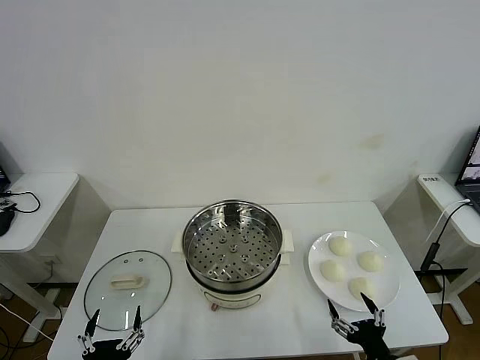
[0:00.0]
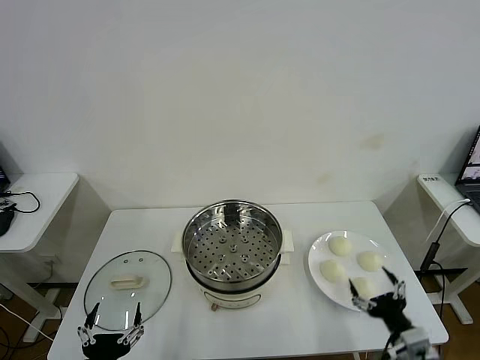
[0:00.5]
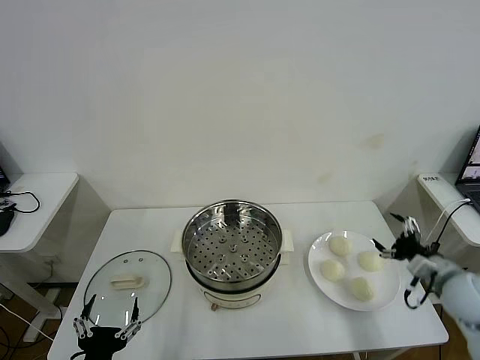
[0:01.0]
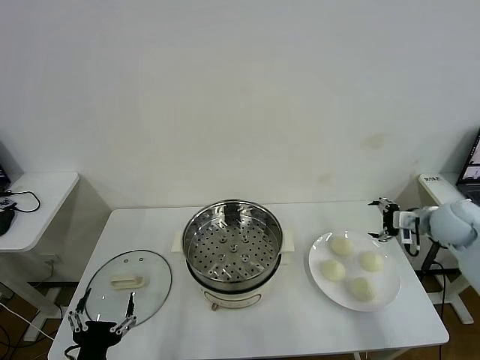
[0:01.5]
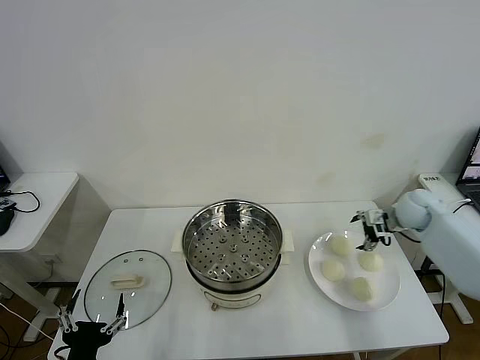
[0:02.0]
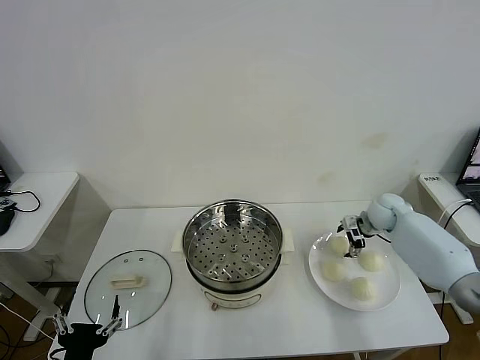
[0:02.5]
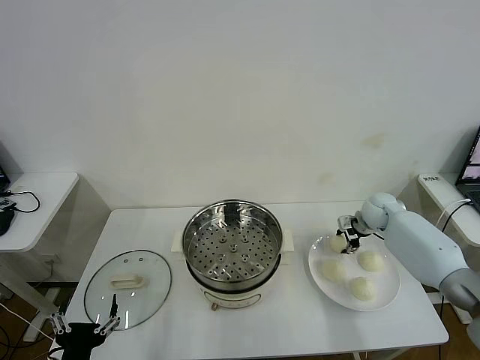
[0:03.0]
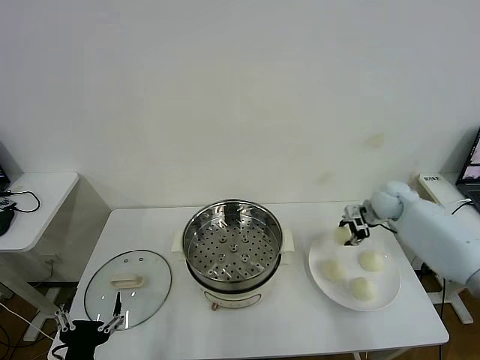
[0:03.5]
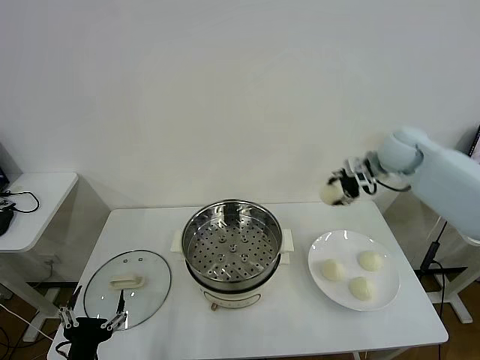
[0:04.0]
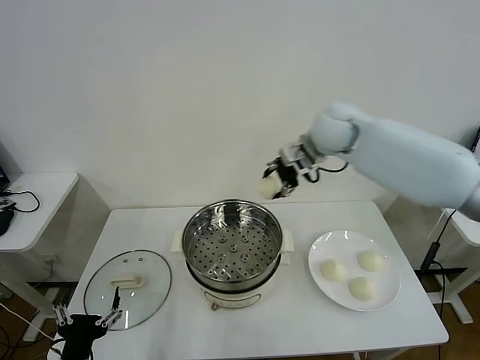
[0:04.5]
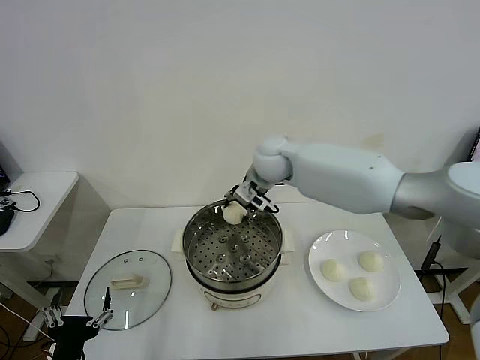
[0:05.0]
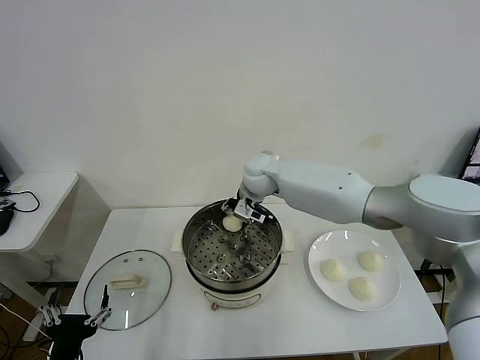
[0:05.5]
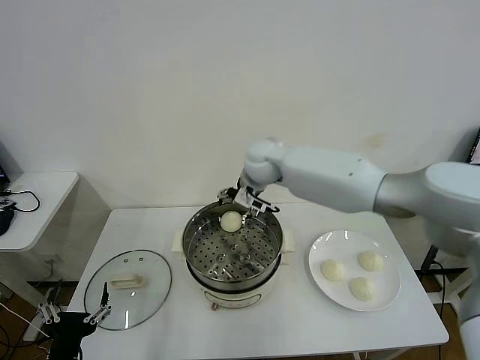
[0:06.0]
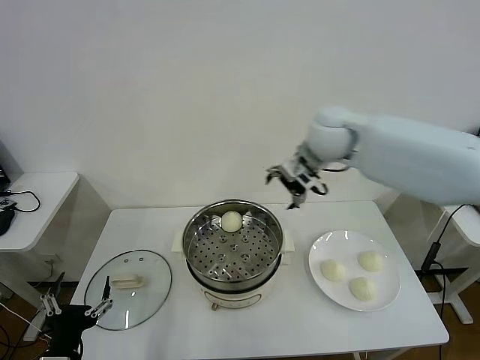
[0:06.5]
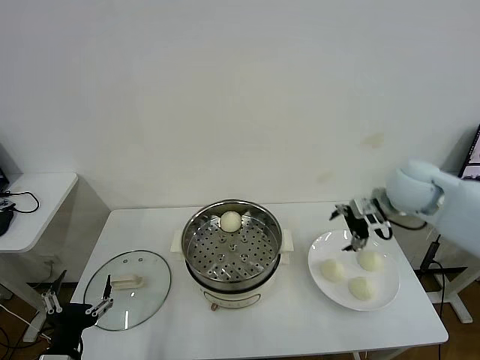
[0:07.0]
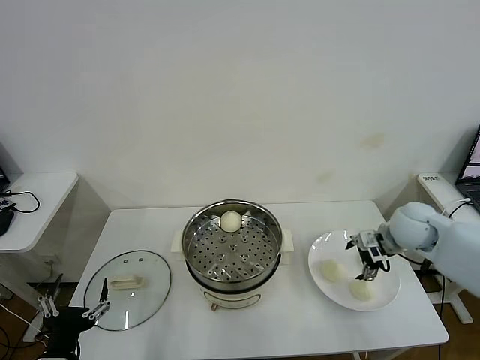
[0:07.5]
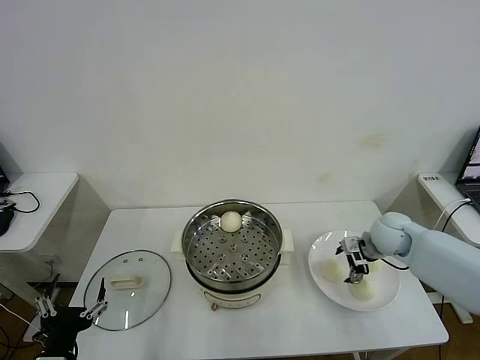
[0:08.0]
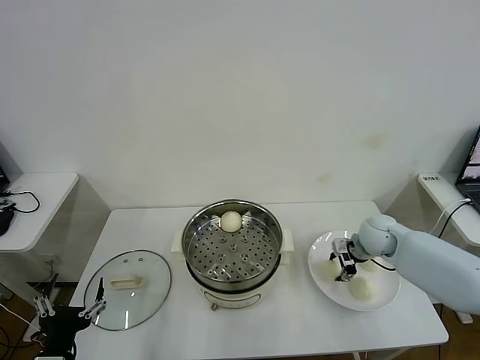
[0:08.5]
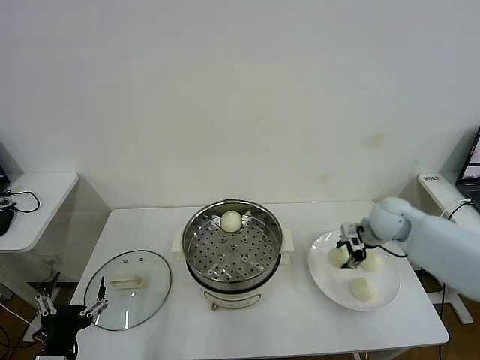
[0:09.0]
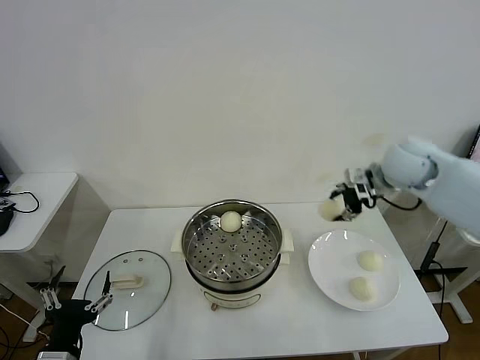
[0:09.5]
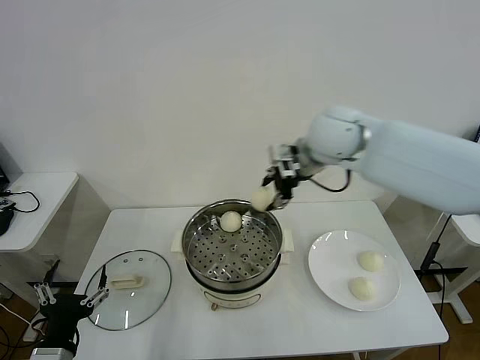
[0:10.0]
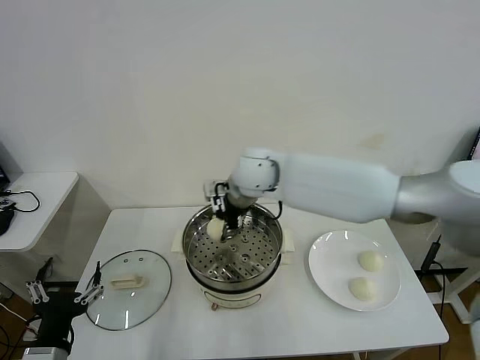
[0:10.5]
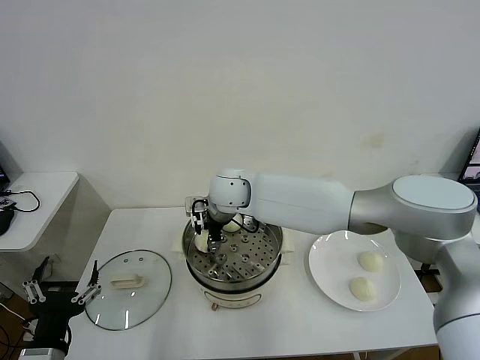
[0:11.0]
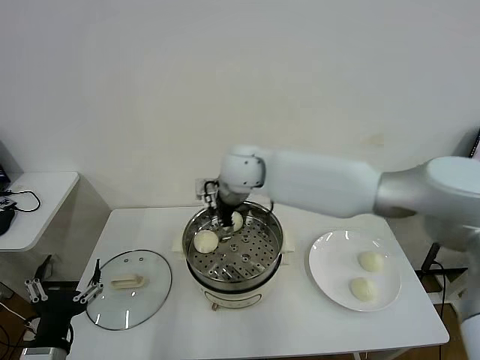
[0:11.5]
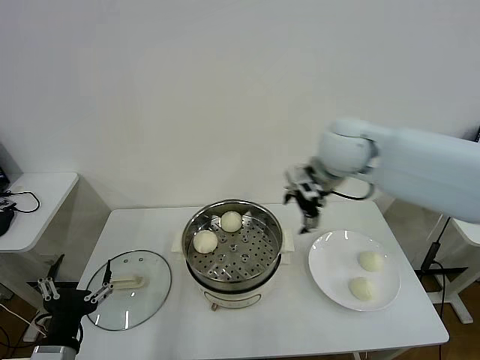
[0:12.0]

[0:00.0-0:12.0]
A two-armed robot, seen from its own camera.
Task of the whole recording: take steamed baozi put them in steamer then cover it.
Step, 0:00.0 to 0:02.5: Grasp the baozi in the plate with right gripper.
Step, 0:03.0 to 0:05.5: Place the baozi on the steamer with right gripper.
Step, 0:06.0 to 0:08.5: Grasp the baozi in the plate with right gripper.
Step, 0:09.0 to 0:11.0: Place the baozi on the steamer with right gripper.
0:02.0 to 0:04.0: The right gripper moves upward and to the left, some 25 cm, and closes up.
0:04.0 to 0:06.0: The right gripper moves to the left, some 25 cm, and opens up.
0:06.0 to 0:08.0: The right gripper travels to the right and downward by some 35 cm.
0:08.0 to 0:10.0: The right gripper is displaced upward and to the left by about 35 cm, and closes its fingers.
0:10.0 to 0:12.0: The right gripper goes about 10 cm to the right, and opens up.

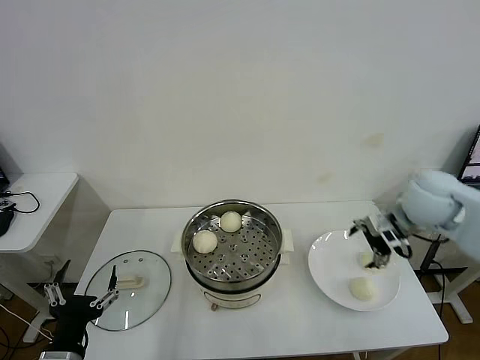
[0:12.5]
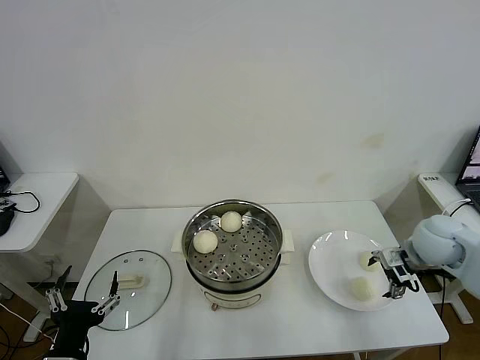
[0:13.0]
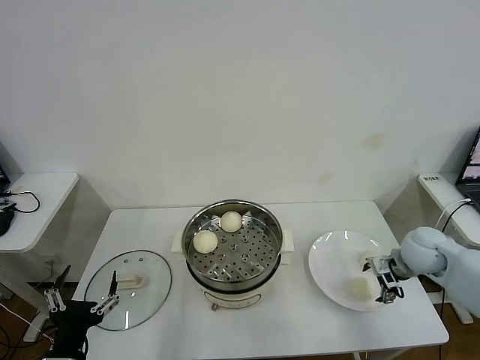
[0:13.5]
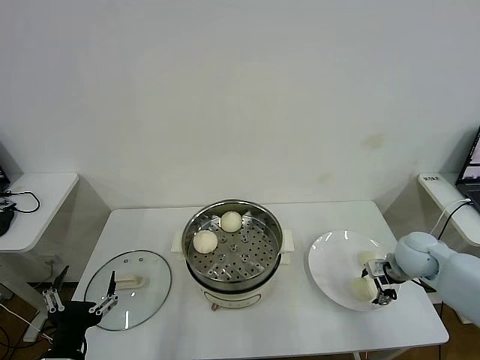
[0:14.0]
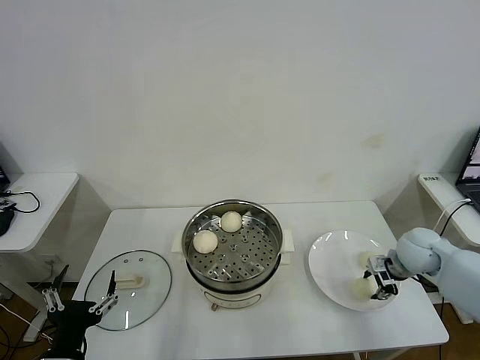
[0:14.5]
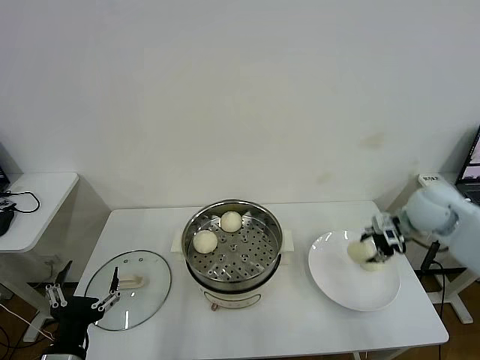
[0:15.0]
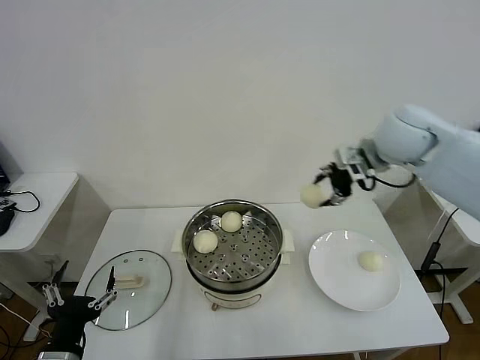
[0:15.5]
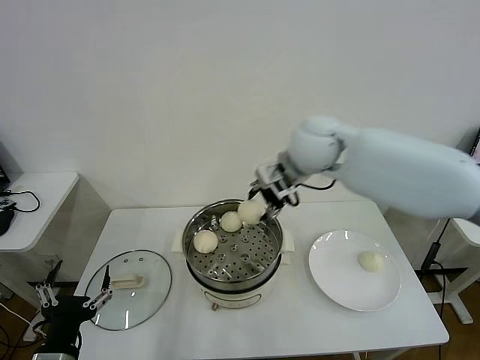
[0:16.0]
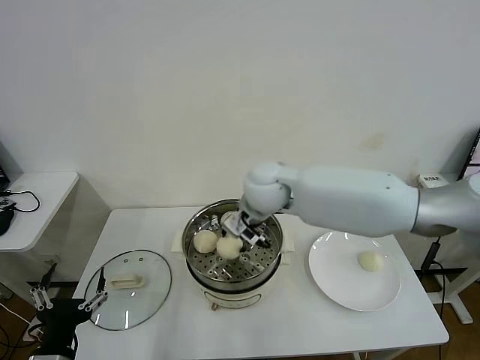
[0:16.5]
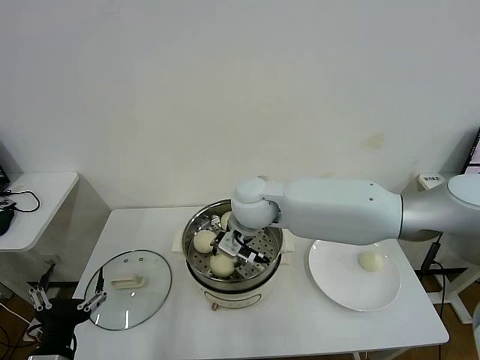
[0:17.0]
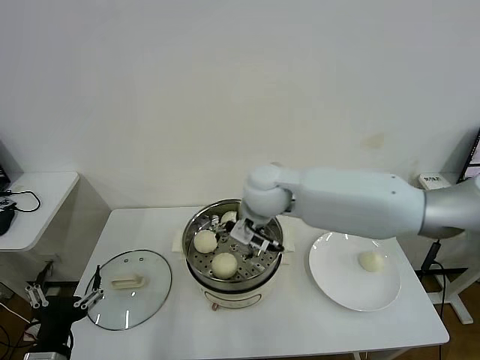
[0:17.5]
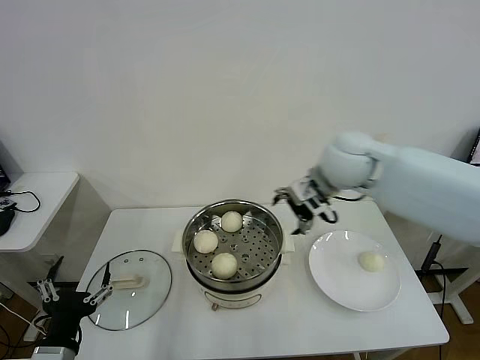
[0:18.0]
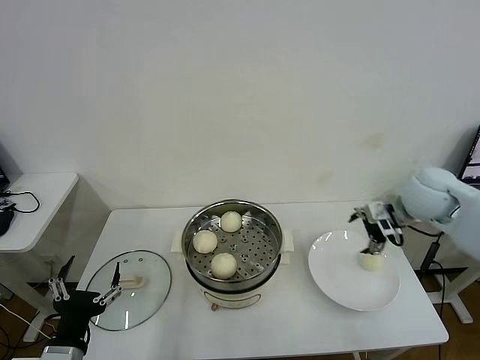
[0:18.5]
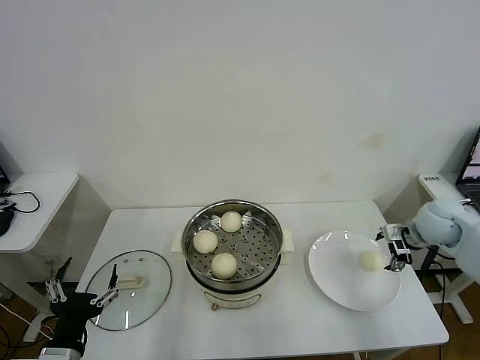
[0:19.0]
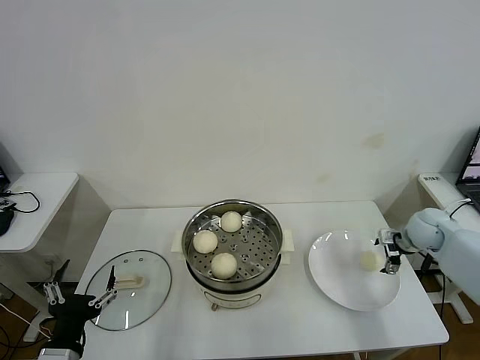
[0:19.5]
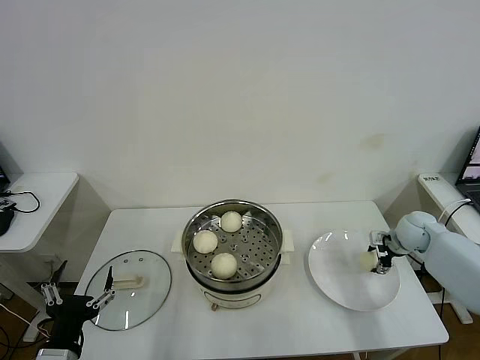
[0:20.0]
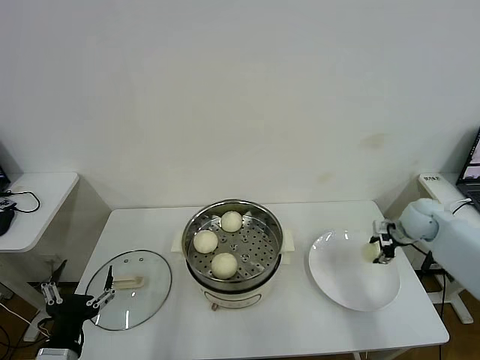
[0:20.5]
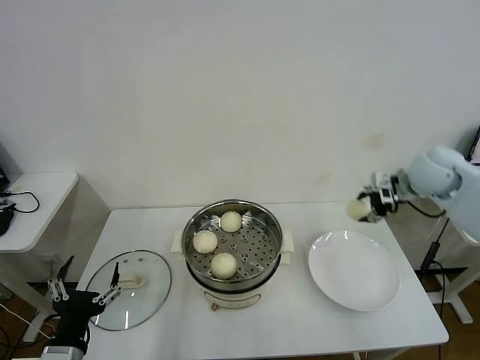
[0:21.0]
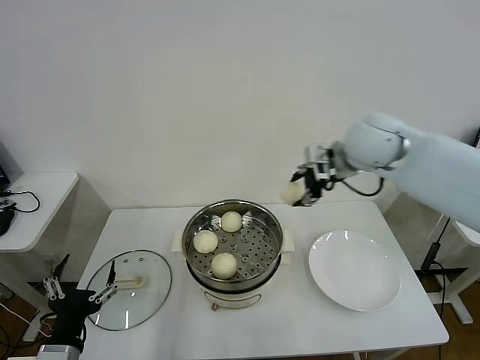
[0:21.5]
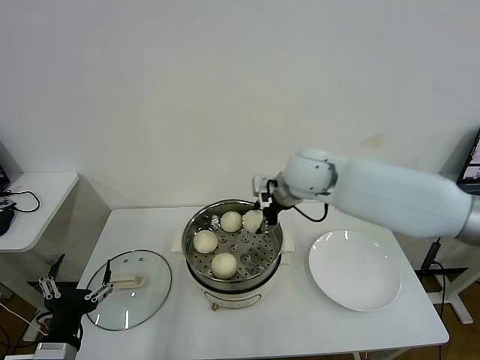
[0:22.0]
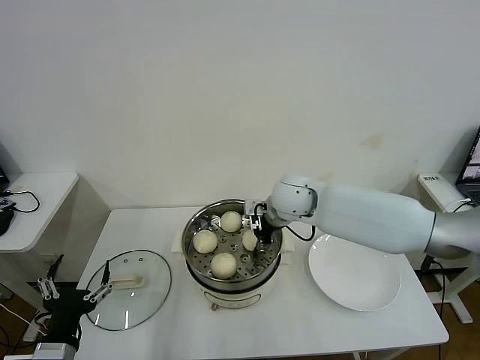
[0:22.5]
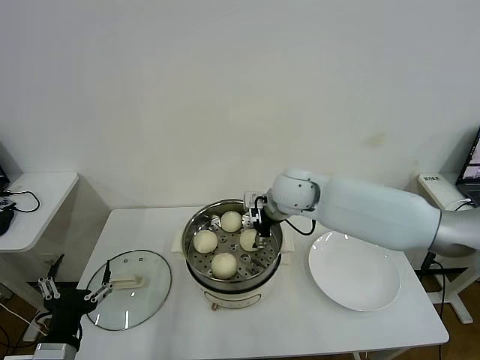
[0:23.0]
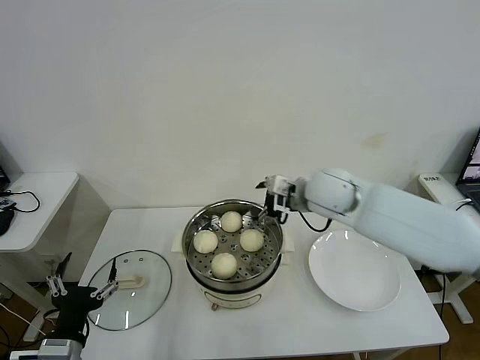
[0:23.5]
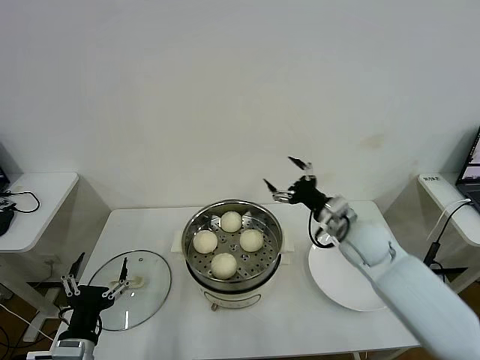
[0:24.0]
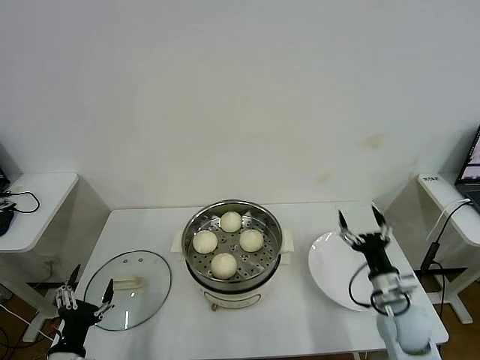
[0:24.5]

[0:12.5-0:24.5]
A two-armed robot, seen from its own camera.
Task of the whole recording: take steamed baozi put them in steamer then cover it.
Step, 0:12.5 to 0:14.0: Grasp the baozi in the plate with right gripper.
Step, 0:14.5 to 0:17.0: Place the baozi on the steamer with right gripper.
Step, 0:17.5 to 0:20.0: Grasp the baozi in the plate with right gripper.
Step, 0:20.5 to 0:22.5: Place the baozi on the steamer with right gripper.
0:12.5 to 0:14.5: The right gripper moves downward, approximately 15 cm, and closes.
0:14.5 to 0:16.5: The right gripper shifts some 35 cm to the left.
0:16.5 to 0:18.5: The right gripper travels to the right by roughly 35 cm, and opens up.
0:18.5 to 0:20.5: The right gripper travels downward and to the right by approximately 15 cm, and closes.
0:20.5 to 0:22.5: The right gripper travels to the left by approximately 35 cm.
0:22.5 to 0:24.5: The right gripper is displaced to the right, backward and downward by some 35 cm, and opens up; the left gripper travels downward by approximately 10 cm.

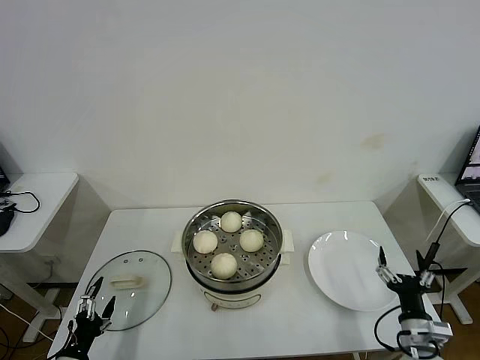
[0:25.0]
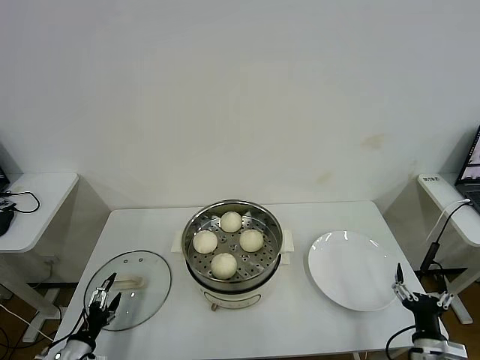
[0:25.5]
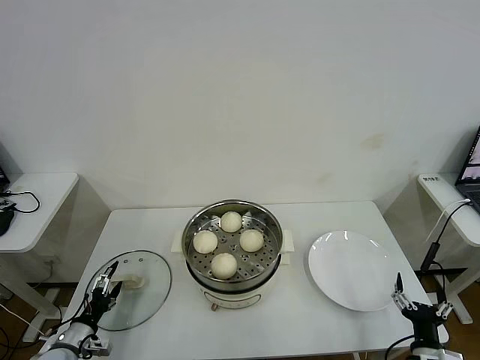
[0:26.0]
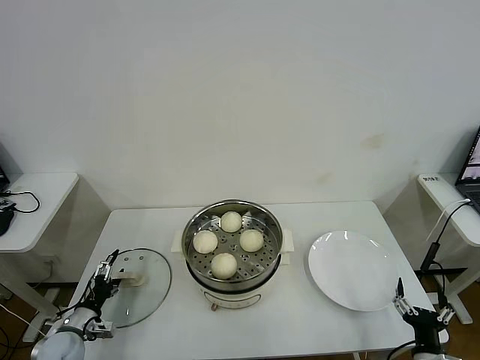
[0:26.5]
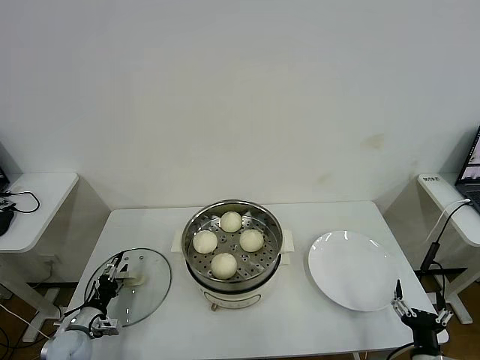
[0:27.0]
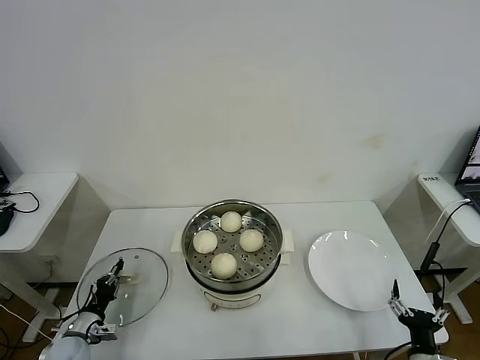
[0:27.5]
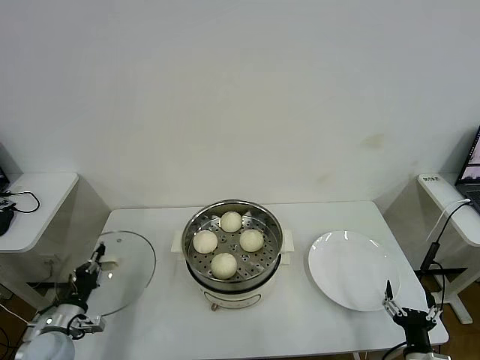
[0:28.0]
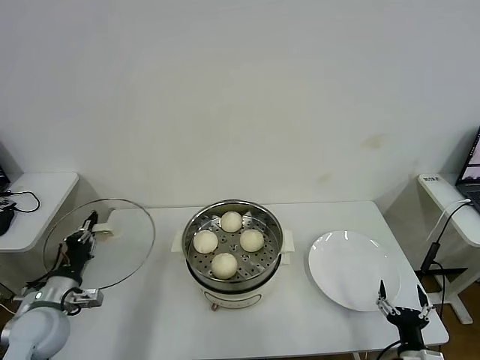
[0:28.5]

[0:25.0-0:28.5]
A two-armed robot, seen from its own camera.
Task of the whole recording: take steamed baozi put them in steamer then cover it.
Step, 0:25.0 to 0:27.5: Grasp the pot lid with left gripper.
0:25.0 to 0:27.0: The left gripper is displaced forward and downward by roughly 15 cm. Meanwhile the right gripper moves backward, some 5 cm.
0:27.0 to 0:28.5: The left gripper heads upward, covering approximately 15 cm, and closes.
